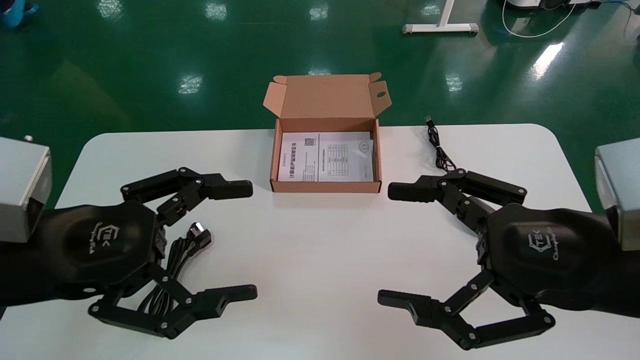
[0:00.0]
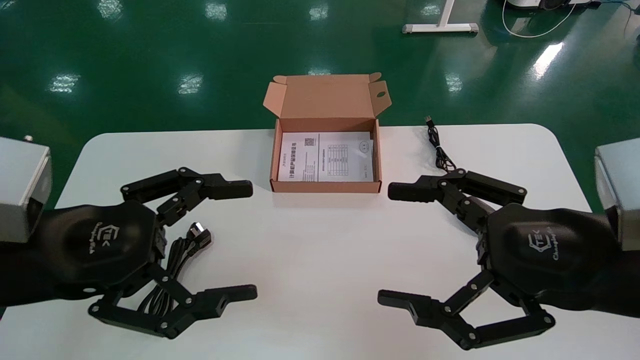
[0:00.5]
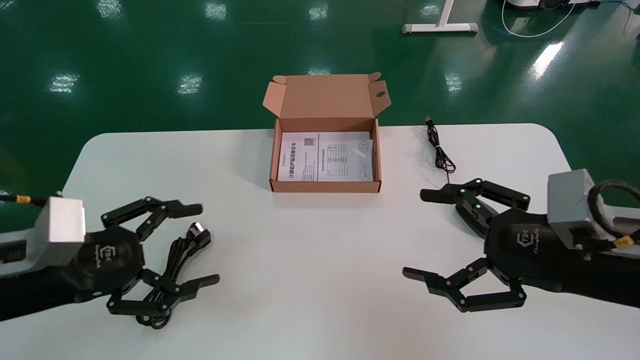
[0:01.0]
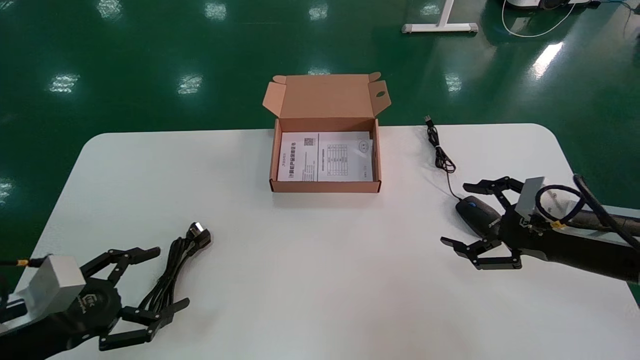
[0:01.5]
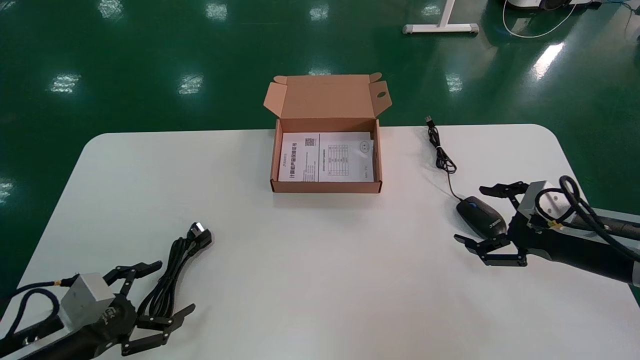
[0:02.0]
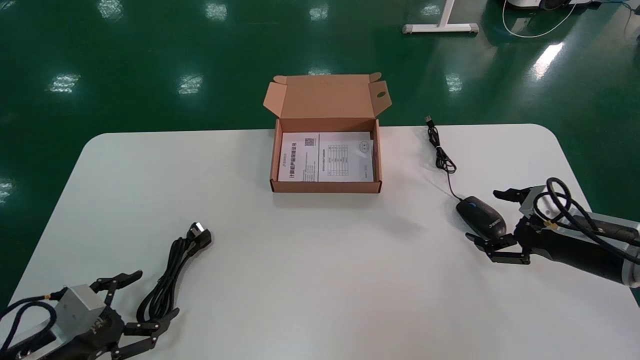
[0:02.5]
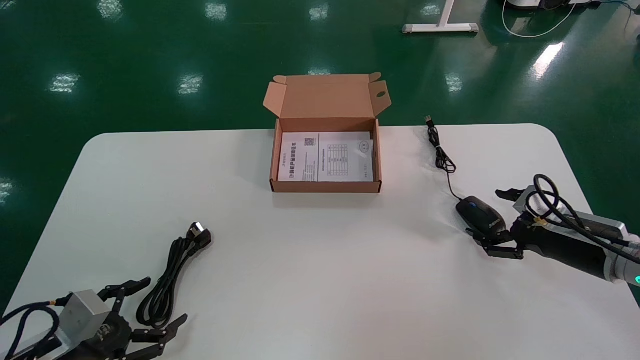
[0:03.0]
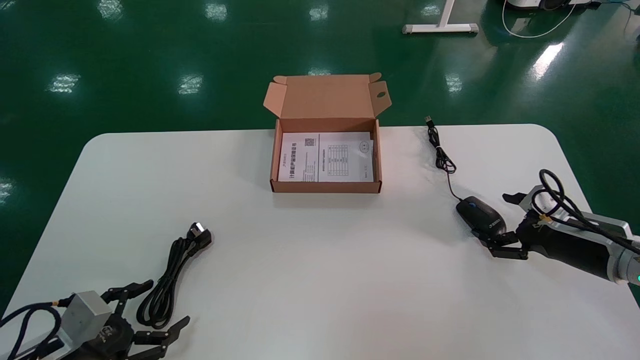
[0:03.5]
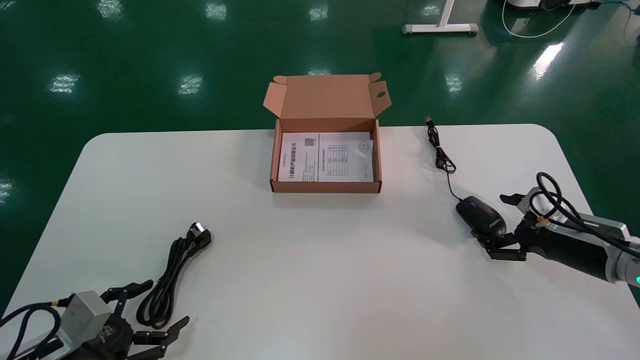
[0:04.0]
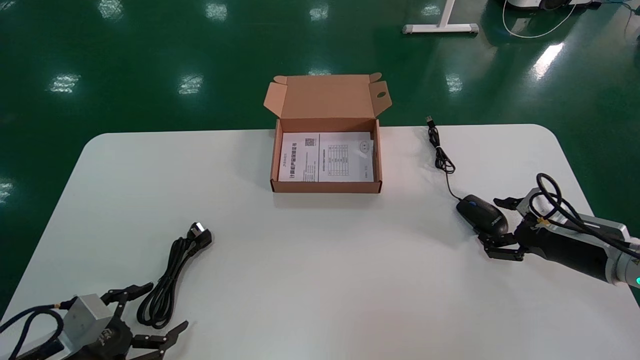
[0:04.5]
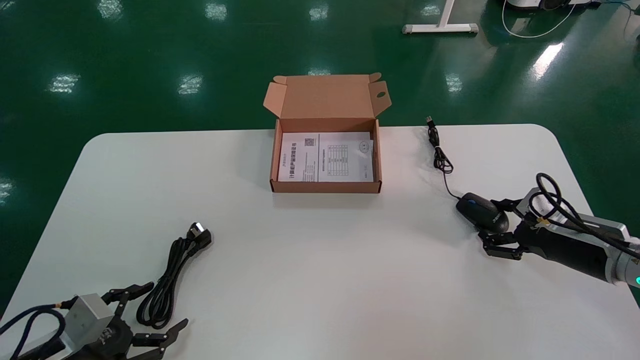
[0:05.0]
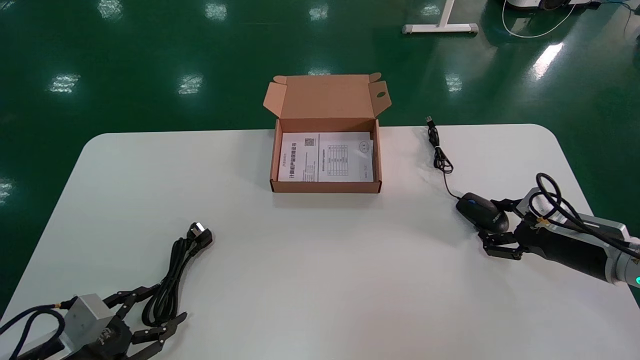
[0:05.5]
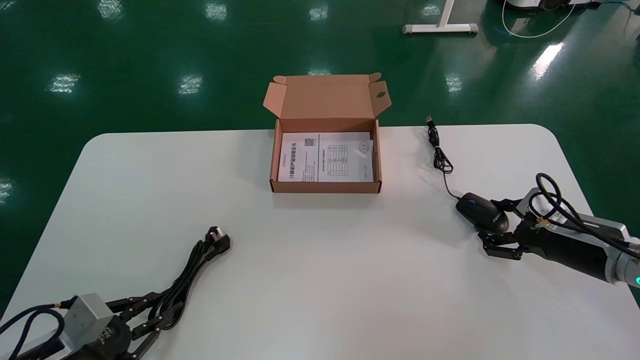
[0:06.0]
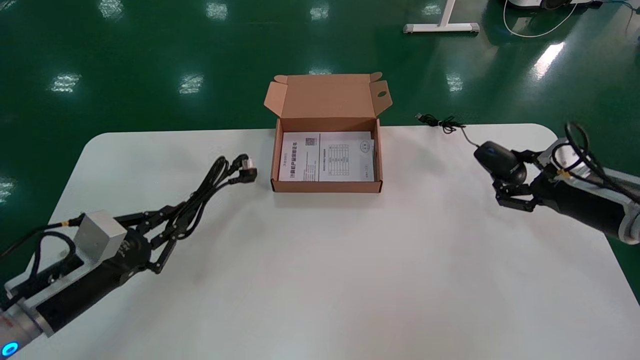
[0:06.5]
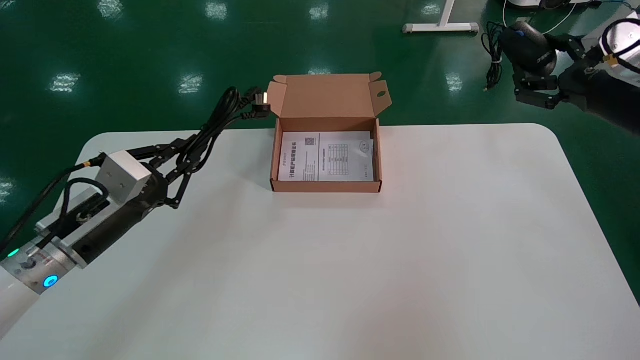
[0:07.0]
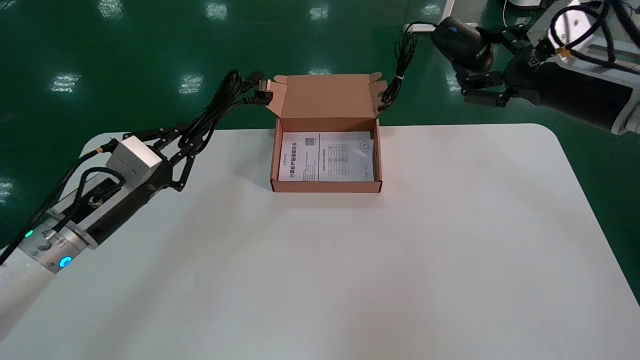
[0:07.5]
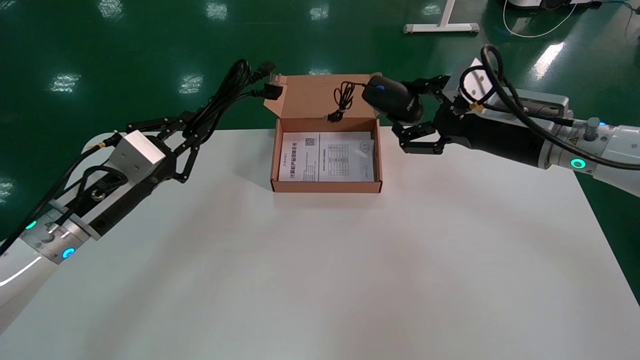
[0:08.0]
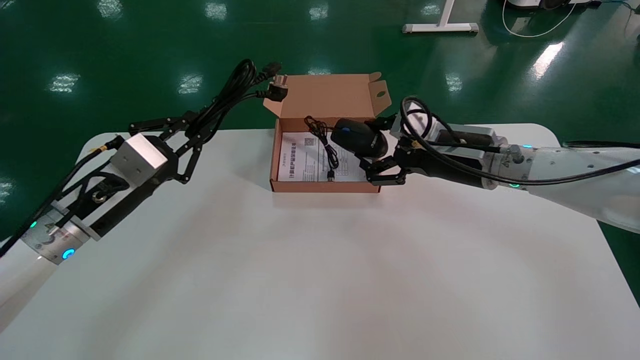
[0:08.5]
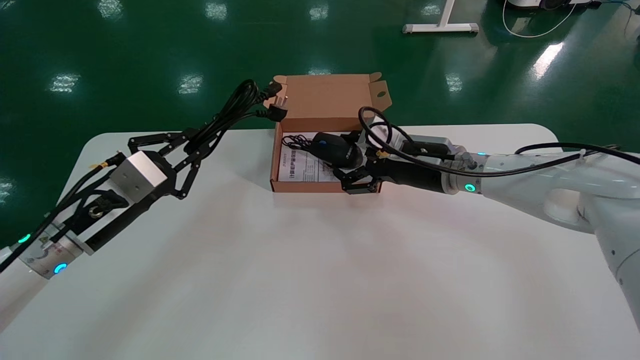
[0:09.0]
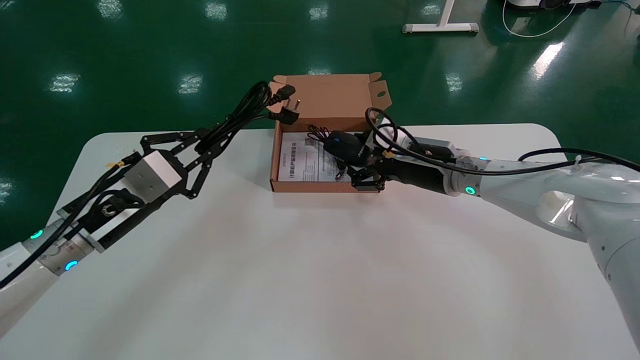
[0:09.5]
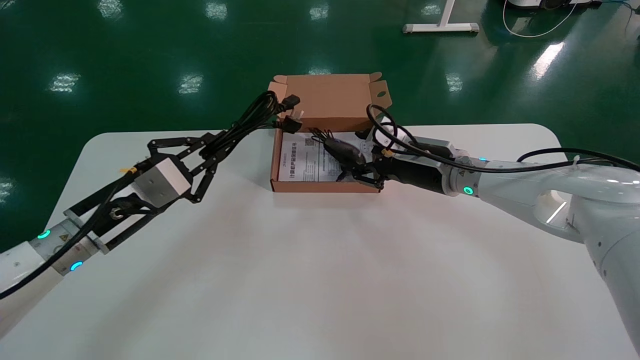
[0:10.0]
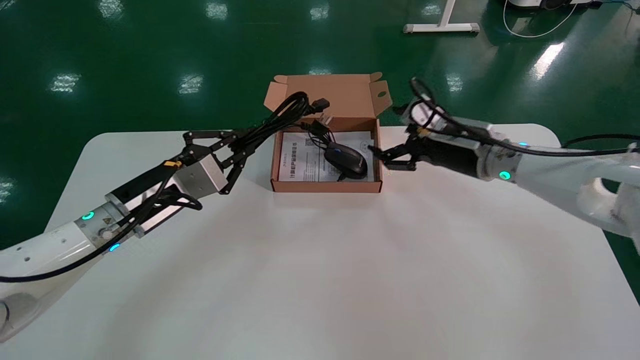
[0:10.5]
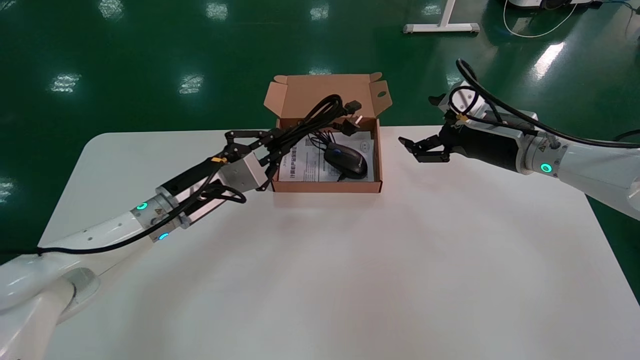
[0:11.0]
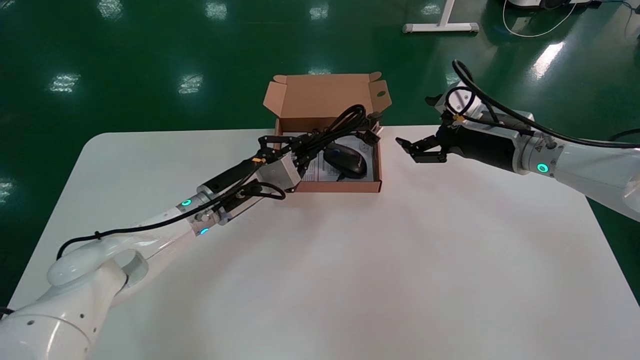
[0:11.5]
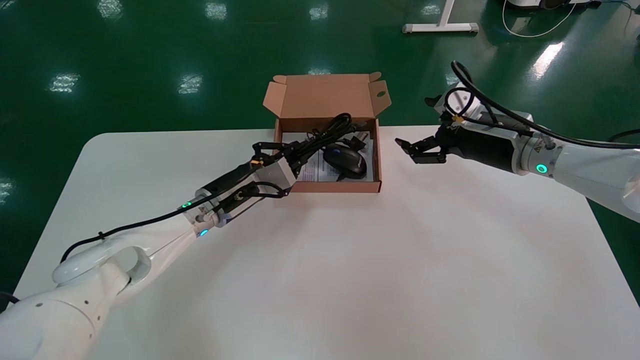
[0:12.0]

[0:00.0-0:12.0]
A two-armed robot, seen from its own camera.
Step, 0:01.0 to 0:06.0: Grab and pick up the mouse and power cord from the accessory packaging area.
0:00.0 to 0:02.0: The left gripper is displaced downward and to the left by roughly 25 cm, while the right gripper is displaced forward, to the right and downward by some 20 cm.
0:02.0 to 0:04.0: The right gripper is displaced forward and downward by about 5 cm.
0:04.0 to 0:06.0: The right gripper closes its fingers. Meanwhile the left gripper closes its fingers.
0:06.0 to 0:08.0: The left gripper goes approximately 20 cm upward and forward, while the right gripper goes approximately 25 cm upward and to the left.
0:08.0 to 0:10.0: The right gripper moves to the left, downward and forward, some 15 cm.
0:10.0 to 0:12.0: The left gripper is displaced forward and to the right by about 15 cm. The right gripper heads to the right, covering roughly 10 cm, and opens its fingers.

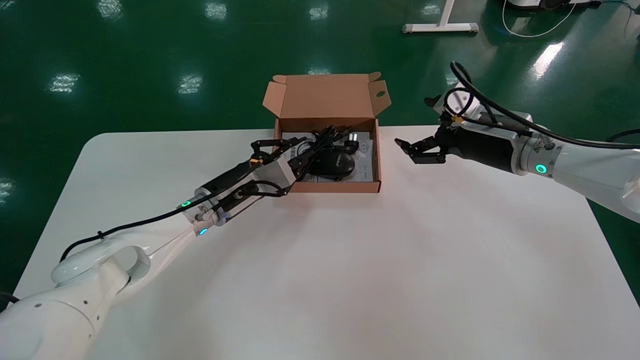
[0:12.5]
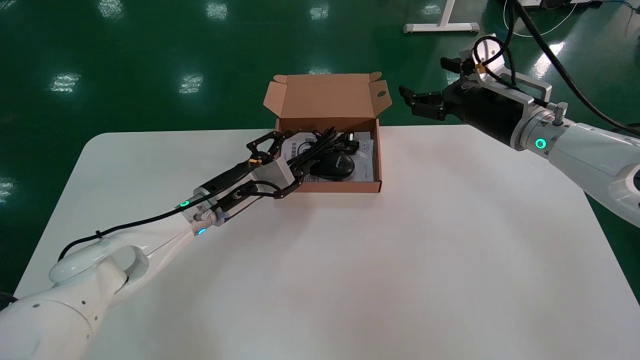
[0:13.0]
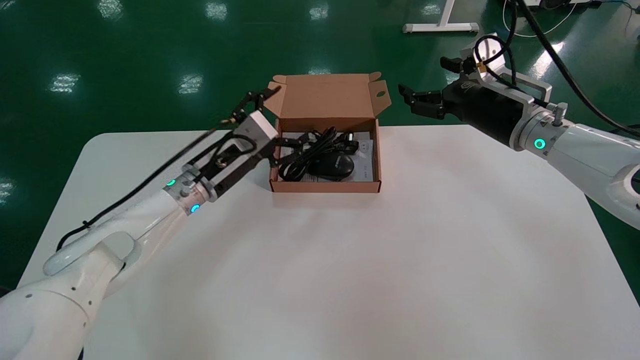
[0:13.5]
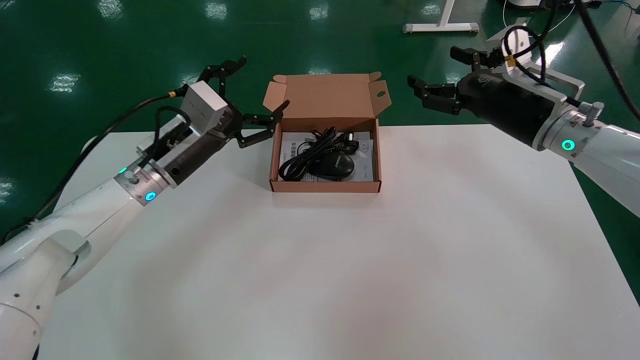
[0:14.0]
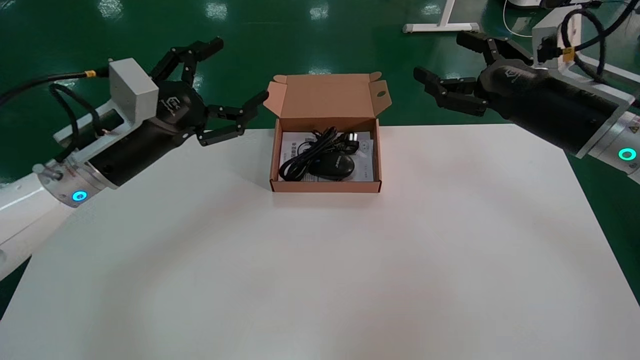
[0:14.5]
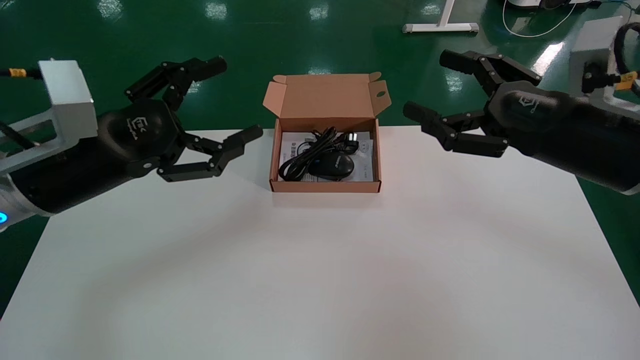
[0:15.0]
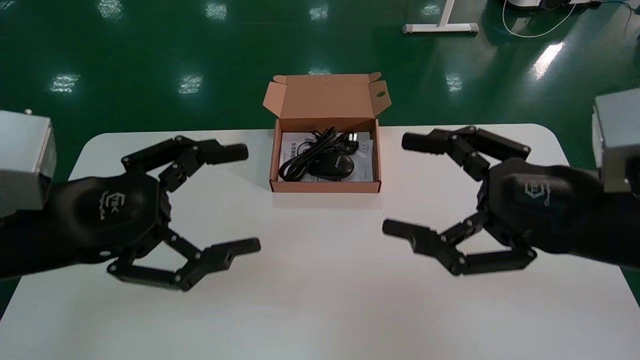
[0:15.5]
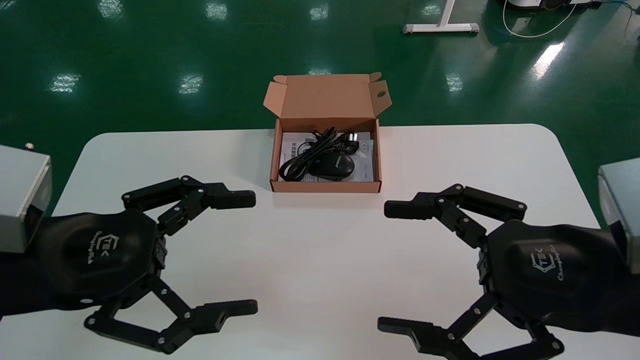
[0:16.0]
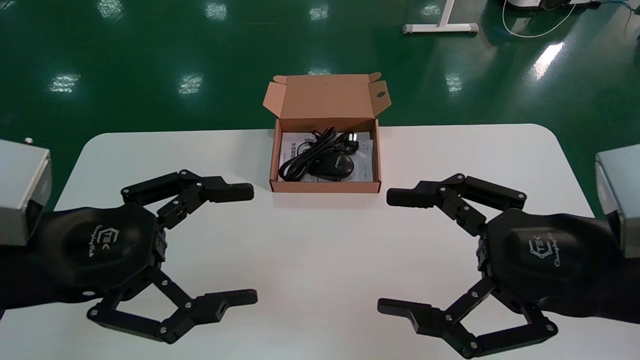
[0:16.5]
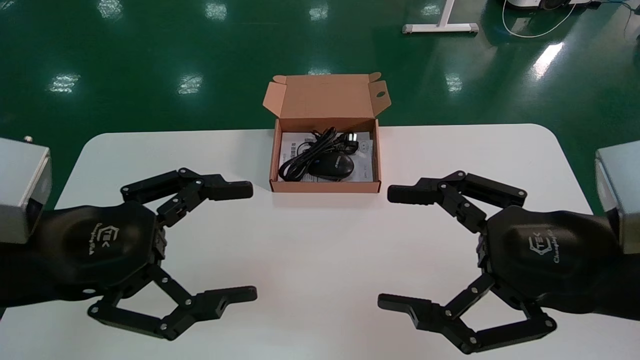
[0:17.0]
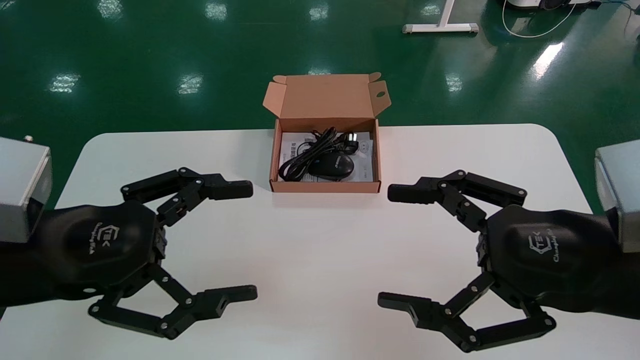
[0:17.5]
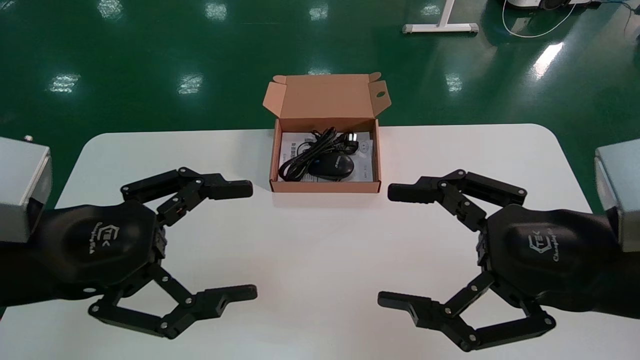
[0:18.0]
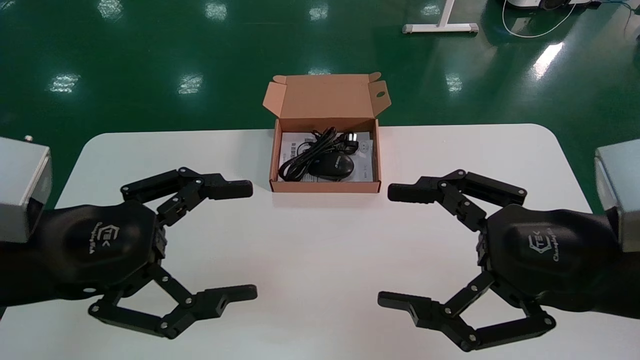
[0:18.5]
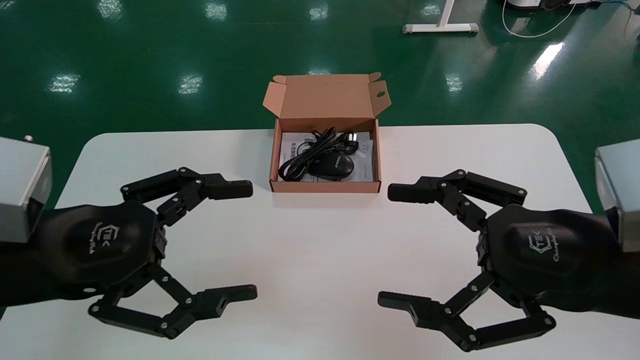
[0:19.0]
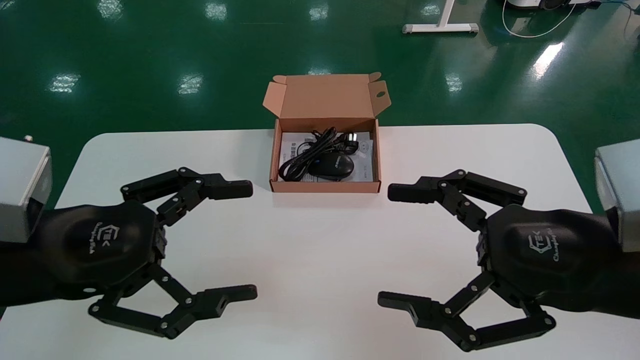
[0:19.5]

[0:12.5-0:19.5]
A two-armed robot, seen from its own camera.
0:12.5 to 0:14.5: The left gripper travels backward, upward and to the left by roughly 20 cm, and opens its fingers. Meanwhile the right gripper shifts roughly 10 cm backward.
0:14.5 to 0:16.0: Both grippers move backward, approximately 20 cm.
0:16.0 to 0:19.5: Both grippers stay about where they are.
